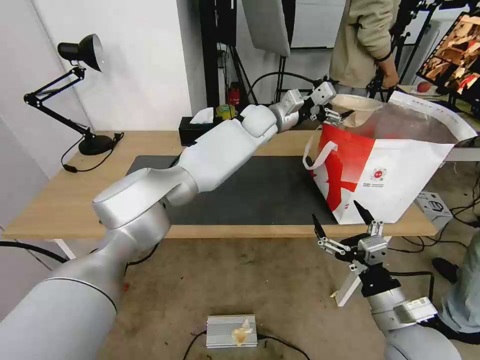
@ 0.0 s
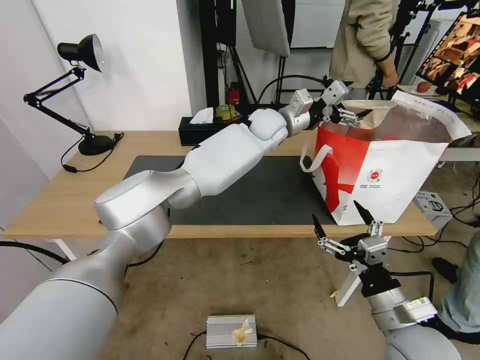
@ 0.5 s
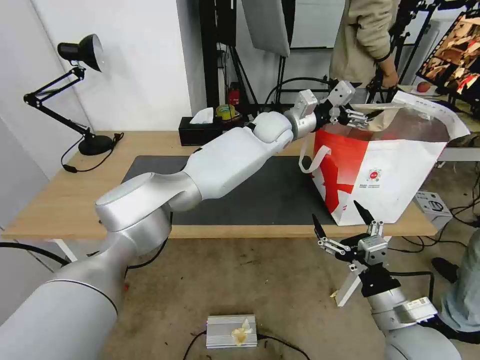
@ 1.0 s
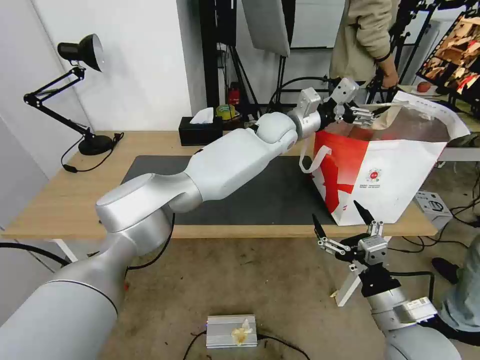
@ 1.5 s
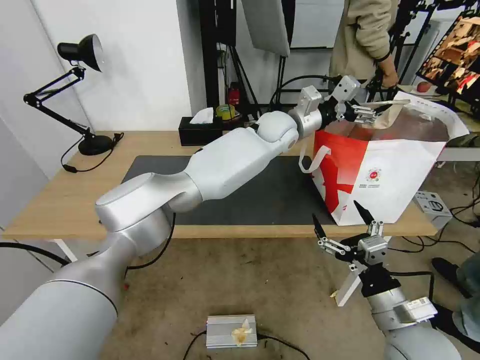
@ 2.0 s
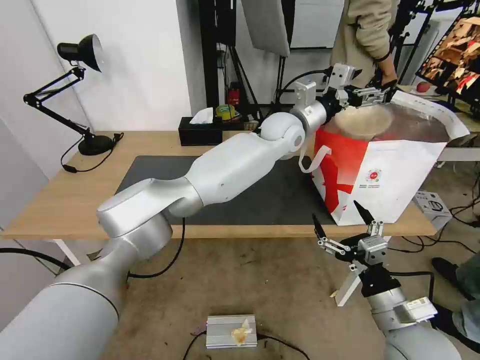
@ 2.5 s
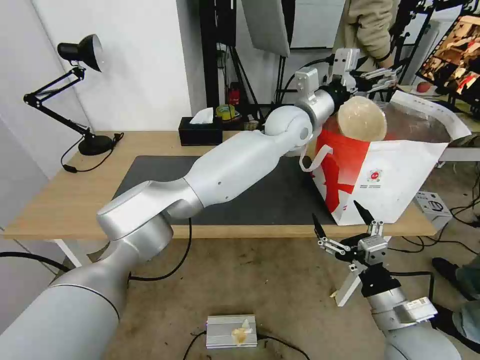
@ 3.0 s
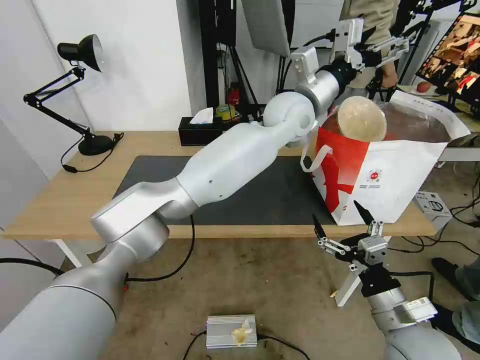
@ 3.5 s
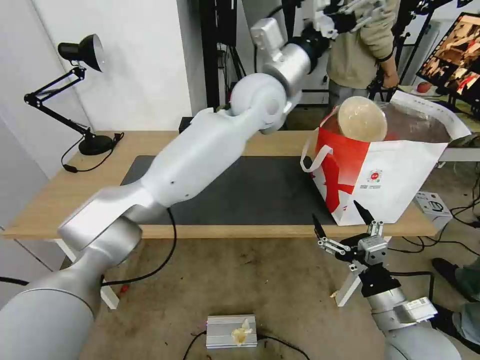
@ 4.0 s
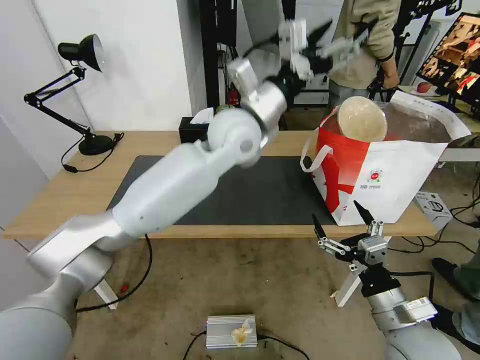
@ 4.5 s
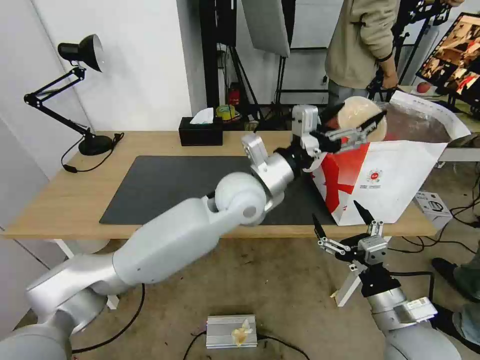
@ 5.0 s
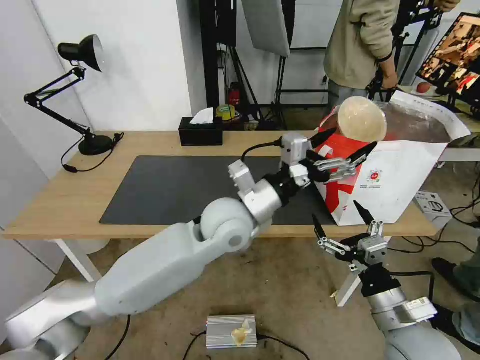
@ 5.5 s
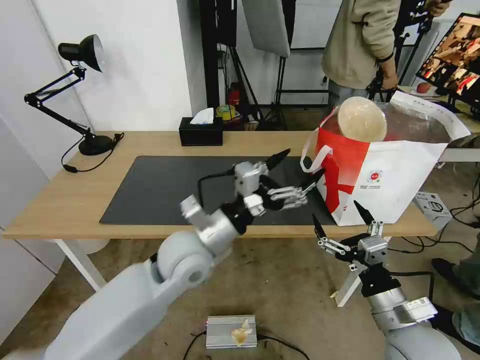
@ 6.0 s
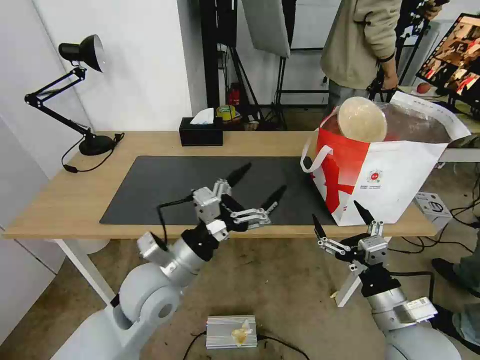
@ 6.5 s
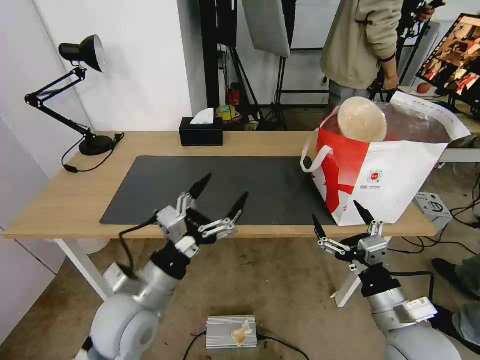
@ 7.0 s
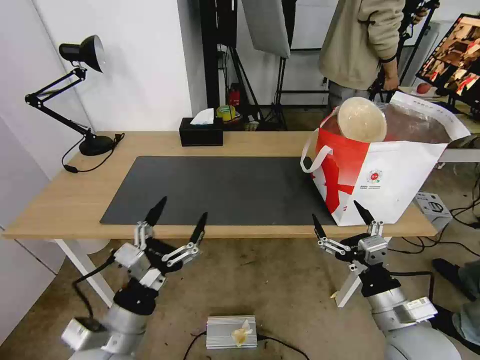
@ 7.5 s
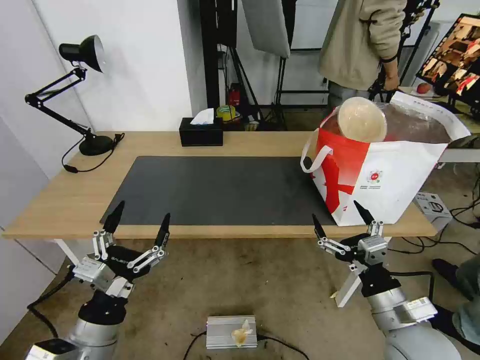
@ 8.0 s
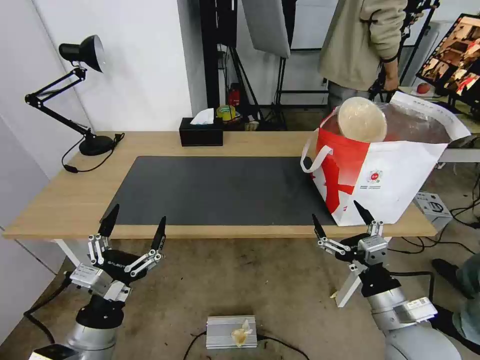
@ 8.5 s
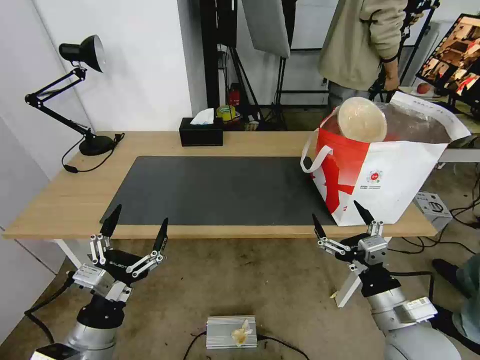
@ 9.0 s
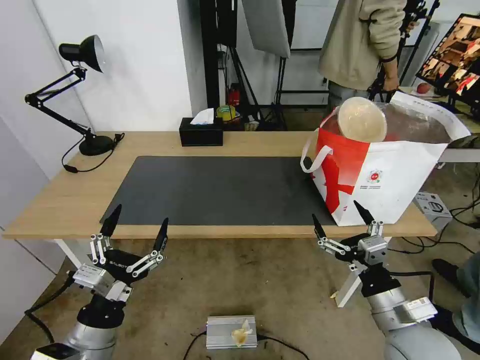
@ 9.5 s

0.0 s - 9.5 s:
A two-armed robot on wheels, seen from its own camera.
Task of the whole recording: Pick up the trash from the table and place it into the takeout bag.
0.0 s - 2.0 s: The left gripper ends up about 5 cm from where it was.
2.0 s - 4.0 s: The left gripper goes approximately 15 cm upward, backward and to the left.
4.0 s - 5.5 s: The left gripper is displaced downward and backward by roughly 20 cm.
5.5 s - 7.5 s: The left gripper is displaced backward, to the left and downward by some 30 cm.
7.5 s - 9.5 s: The grippers make only small movements.

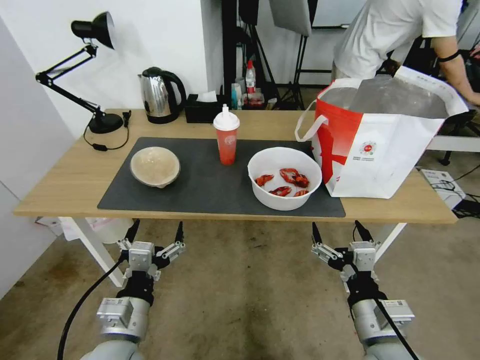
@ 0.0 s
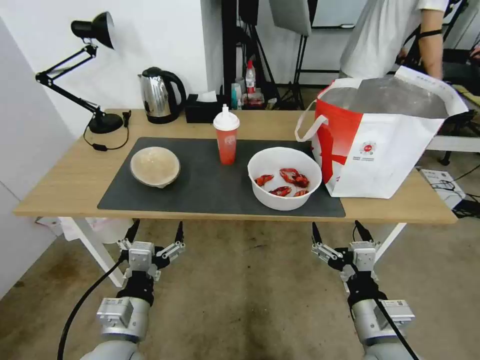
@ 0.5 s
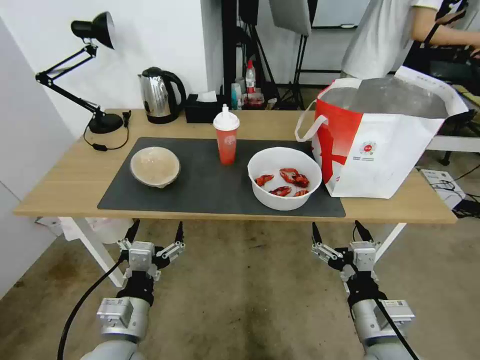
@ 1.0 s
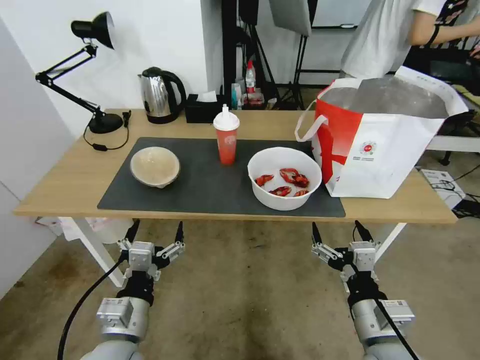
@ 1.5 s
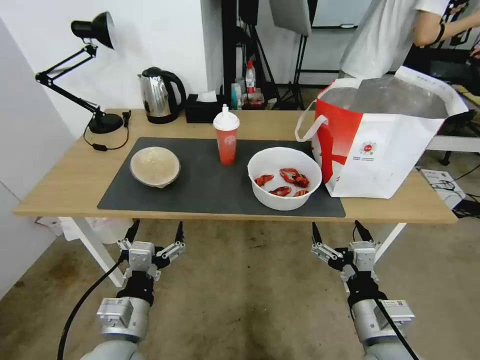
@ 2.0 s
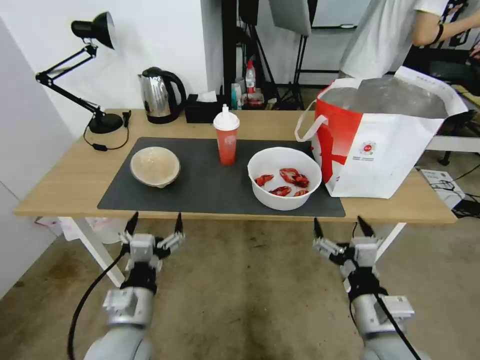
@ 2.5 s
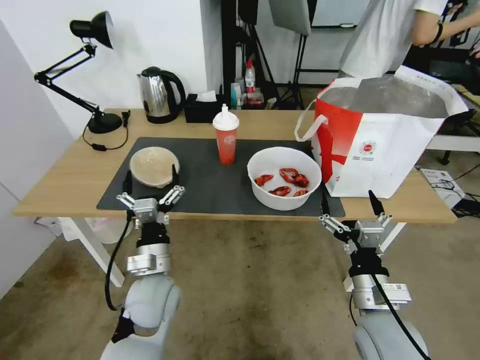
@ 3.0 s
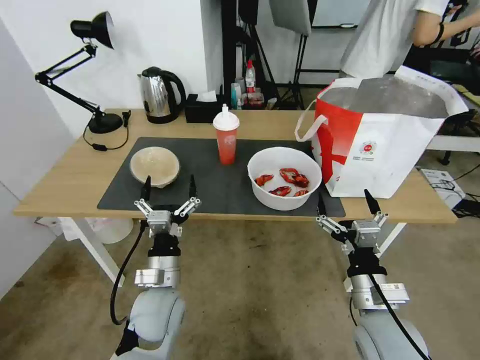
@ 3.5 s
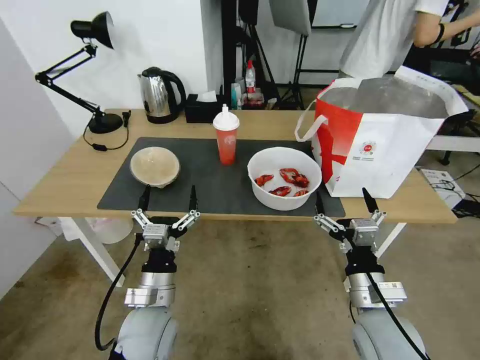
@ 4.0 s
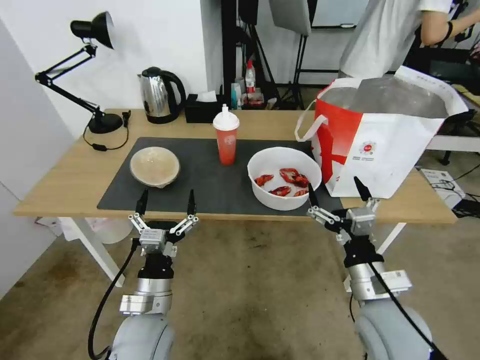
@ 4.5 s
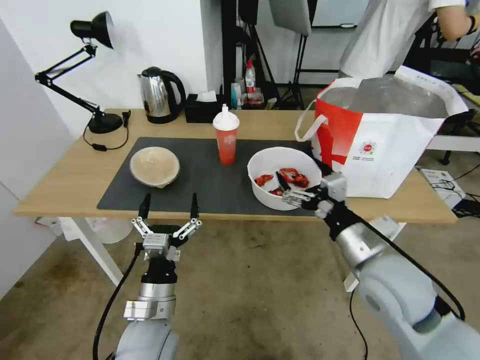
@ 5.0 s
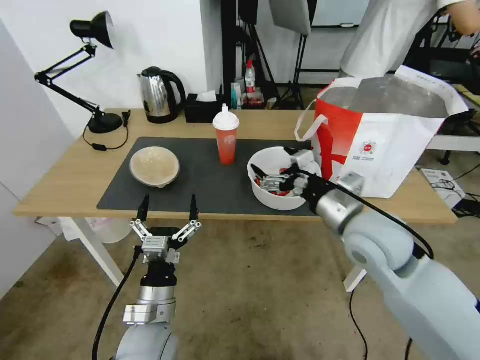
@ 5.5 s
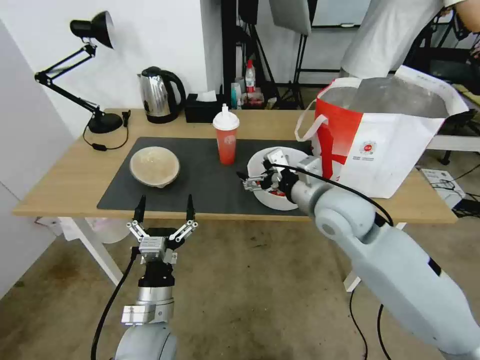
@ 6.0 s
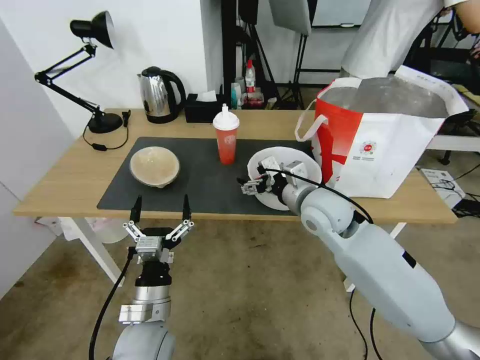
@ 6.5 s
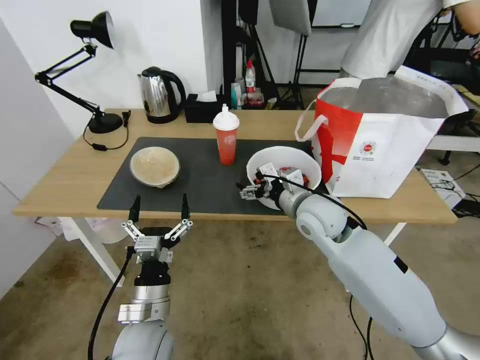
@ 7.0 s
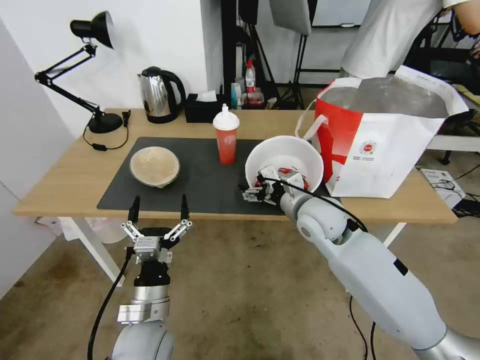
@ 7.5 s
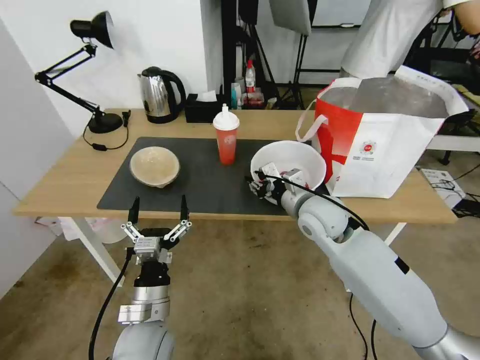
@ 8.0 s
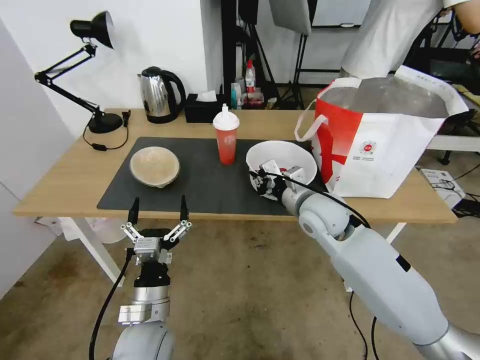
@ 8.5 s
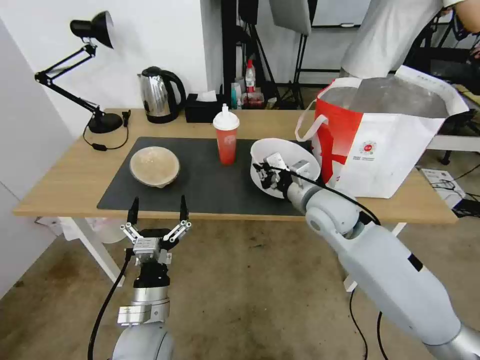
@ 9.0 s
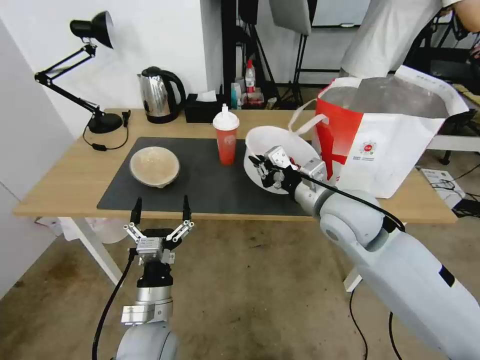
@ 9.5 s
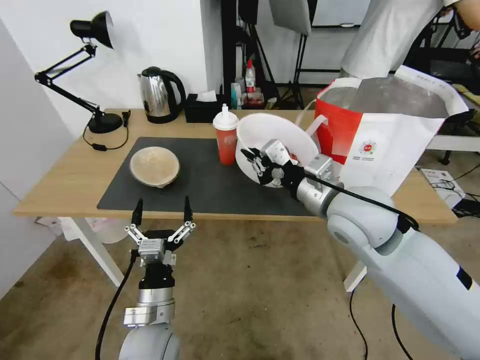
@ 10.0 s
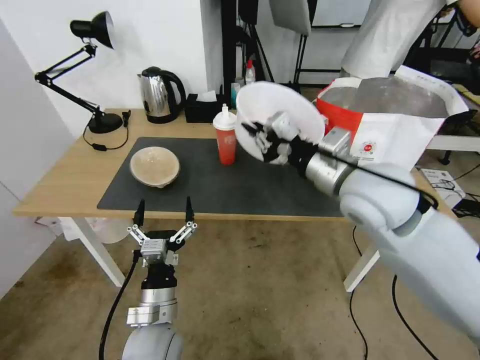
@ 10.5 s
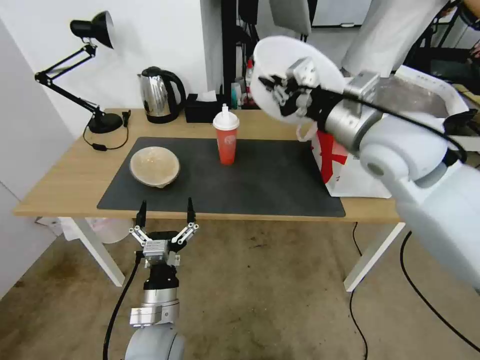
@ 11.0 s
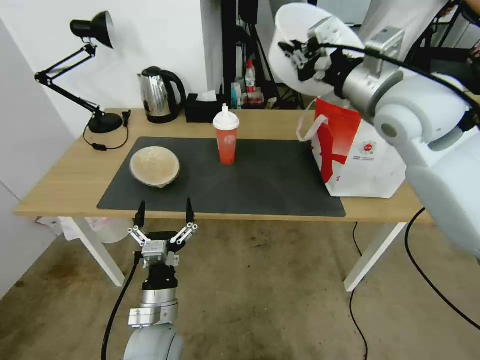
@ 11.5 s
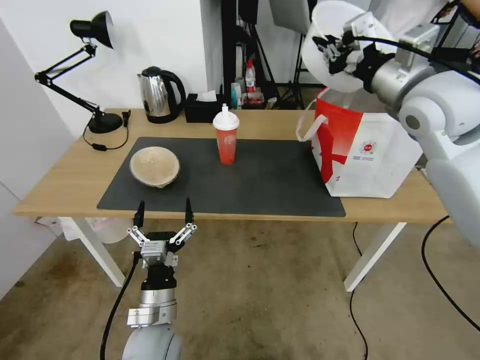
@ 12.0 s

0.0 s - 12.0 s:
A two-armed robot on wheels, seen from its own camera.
Task of the whole recording: Pick up the trash from the table and place it into the takeout bag.
2.0 s - 4.0 s: The left gripper moves forward, some 5 cm.
4.0 s - 6.0 s: The right gripper travels forward and upward by approximately 20 cm.
6.0 s - 8.0 s: The right gripper moves downward, approximately 5 cm, and closes.
8.0 s - 10.0 s: The right gripper moves upward and backward, some 10 cm, and closes.
10.0 s - 12.0 s: The right gripper heads upward, to the right and forward, covering some 20 cm.

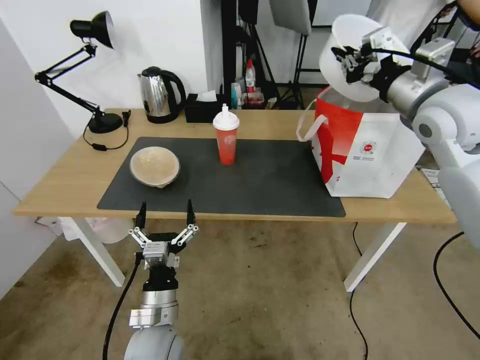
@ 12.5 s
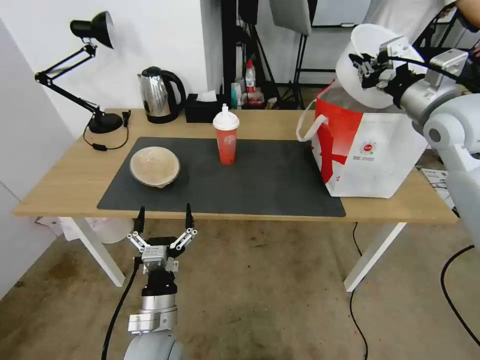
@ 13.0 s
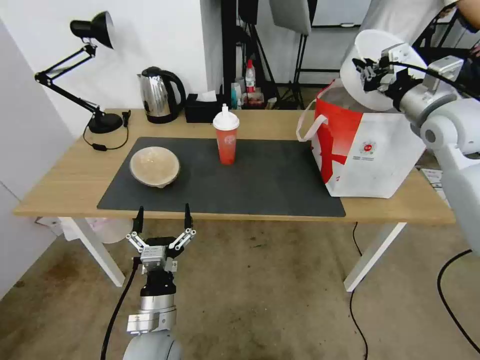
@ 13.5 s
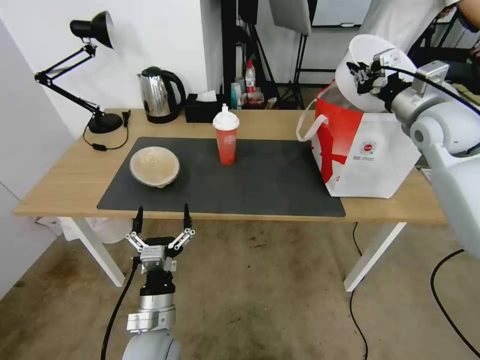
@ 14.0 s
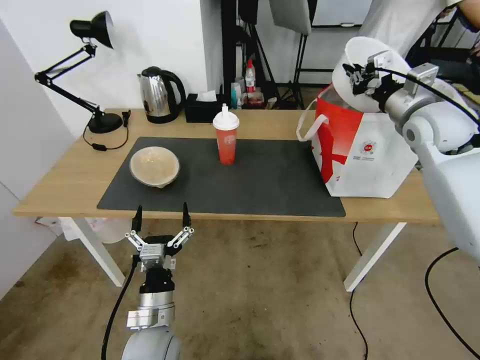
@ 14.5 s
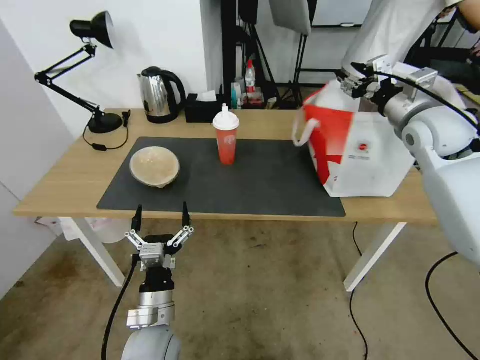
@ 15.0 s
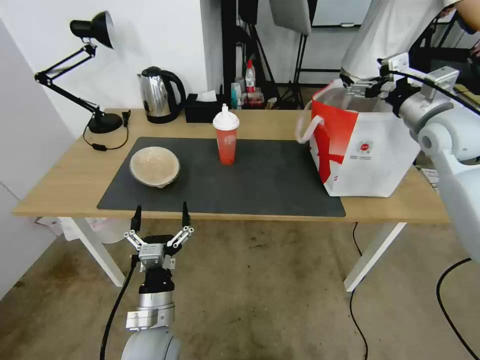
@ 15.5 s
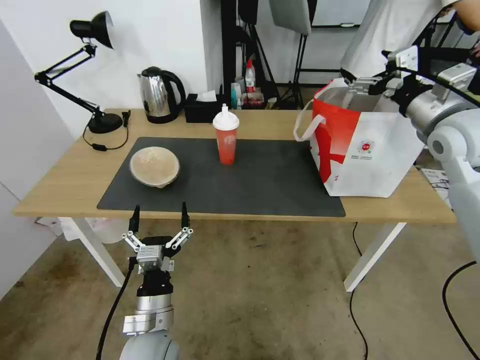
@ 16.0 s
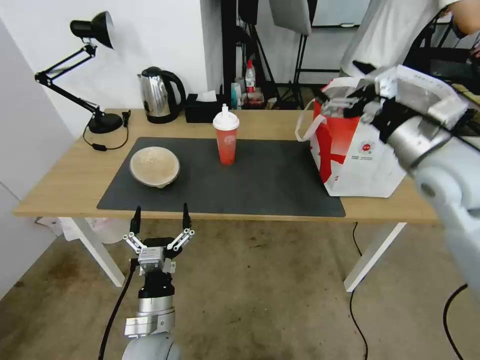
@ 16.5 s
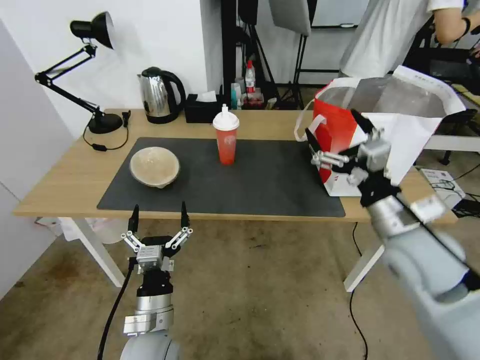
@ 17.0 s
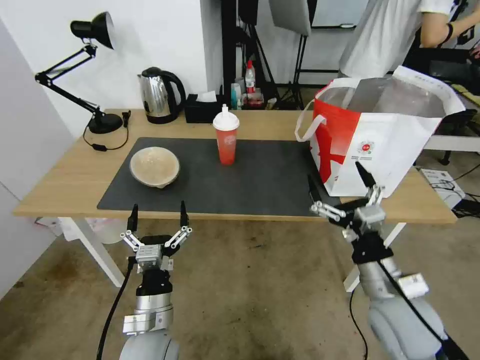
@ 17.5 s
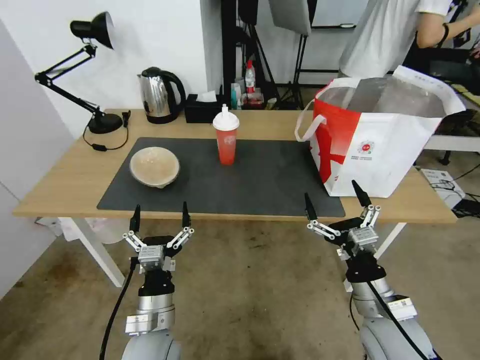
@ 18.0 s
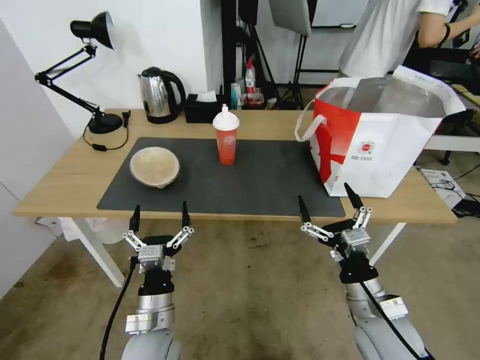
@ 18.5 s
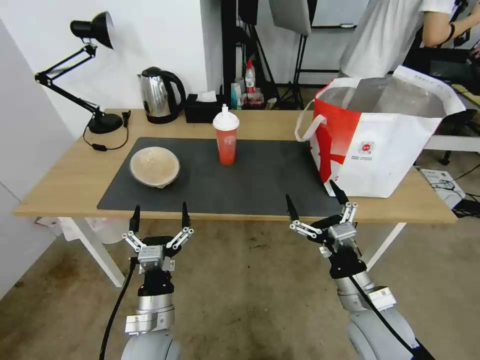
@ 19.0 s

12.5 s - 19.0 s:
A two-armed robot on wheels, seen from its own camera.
Task of the whole recording: Pick up the trash from the table and place it into the takeout bag.
12.5 s - 14.5 s: The right gripper moves forward and downward, approximately 10 cm.
14.5 s - 17.0 s: The right gripper goes about 25 cm backward, downward and to the left, and opens its fingers.
17.0 s - 19.0 s: The right gripper moves downward and backward, some 15 cm.
